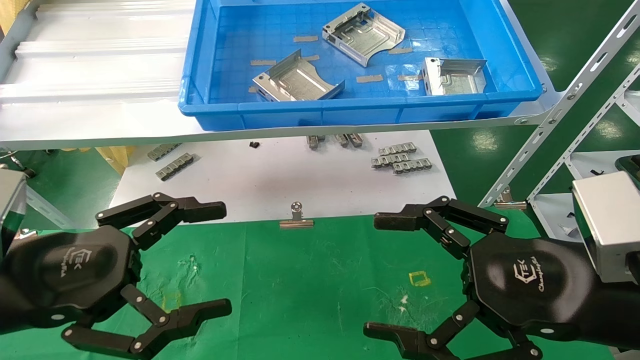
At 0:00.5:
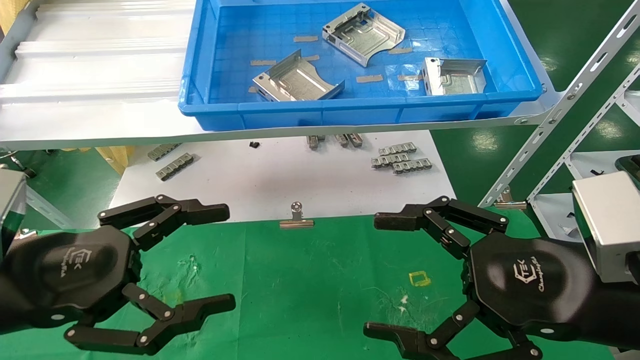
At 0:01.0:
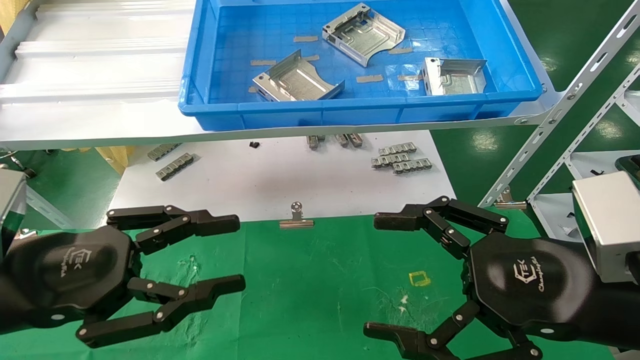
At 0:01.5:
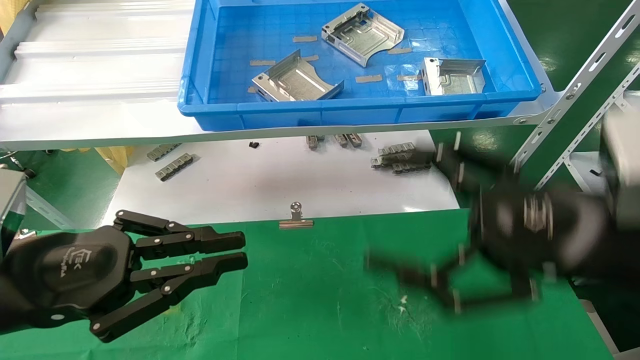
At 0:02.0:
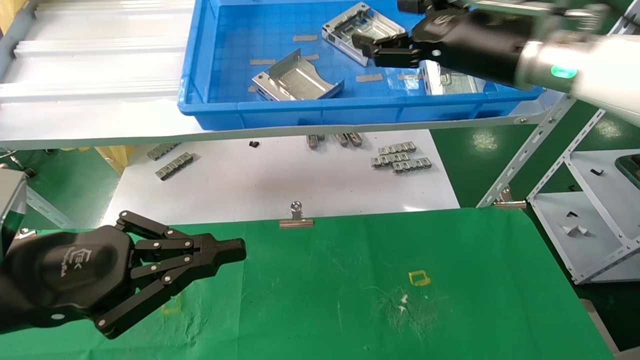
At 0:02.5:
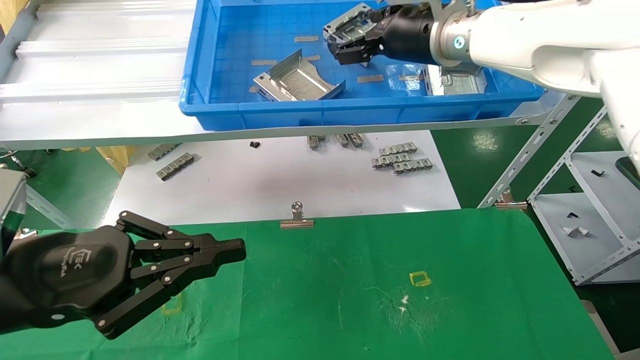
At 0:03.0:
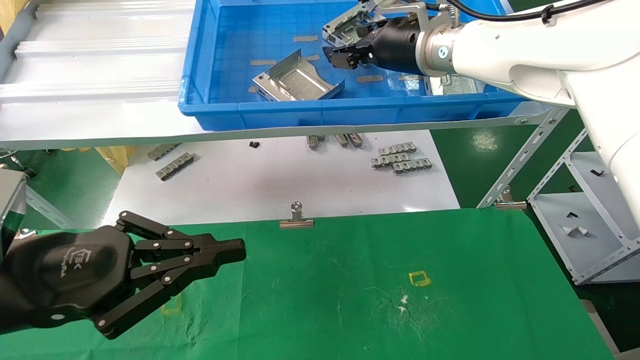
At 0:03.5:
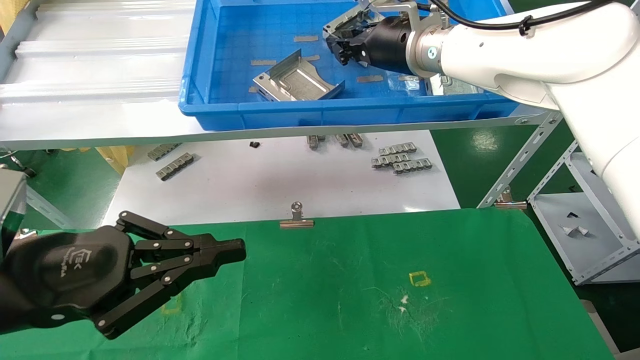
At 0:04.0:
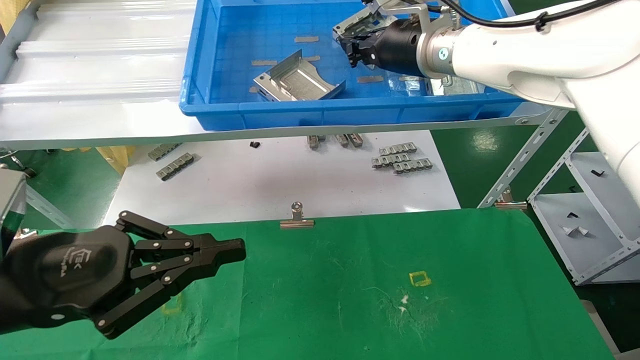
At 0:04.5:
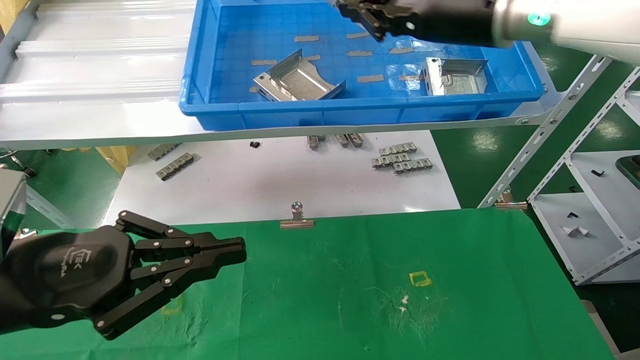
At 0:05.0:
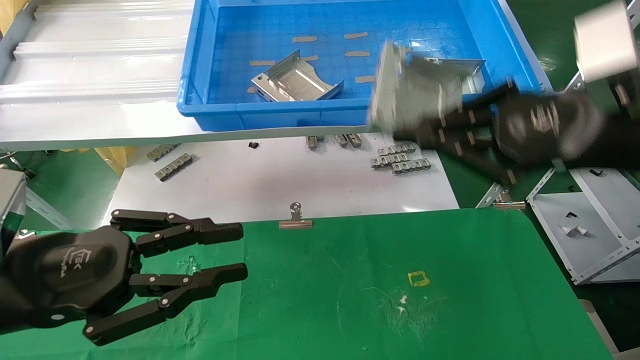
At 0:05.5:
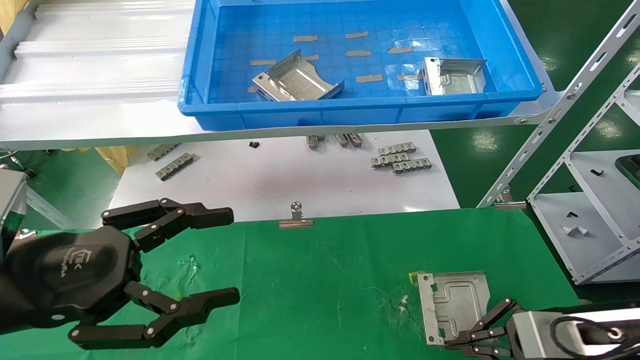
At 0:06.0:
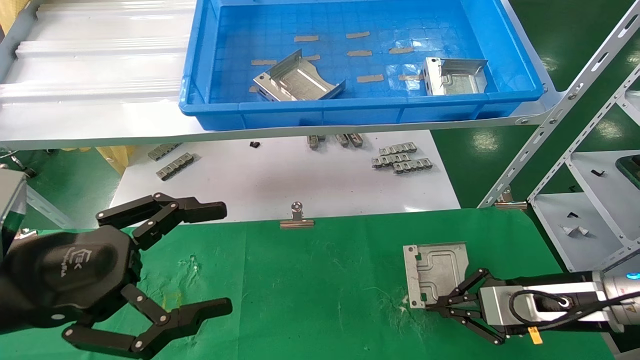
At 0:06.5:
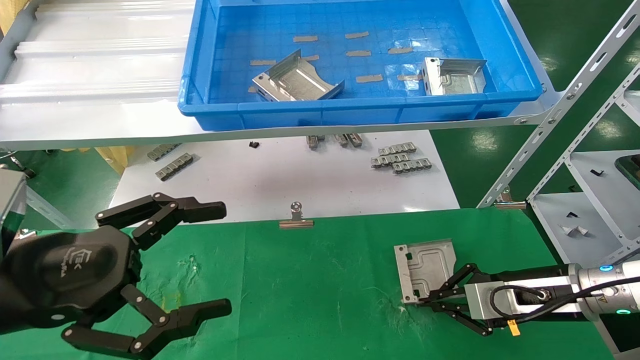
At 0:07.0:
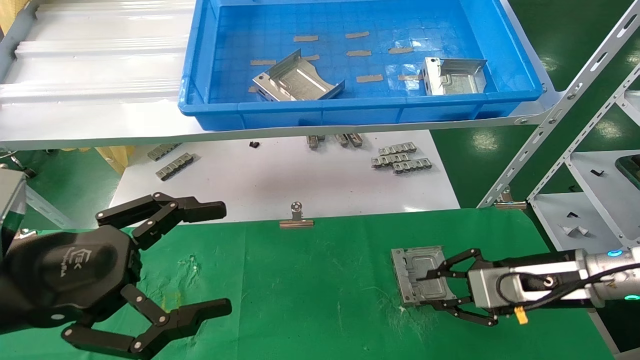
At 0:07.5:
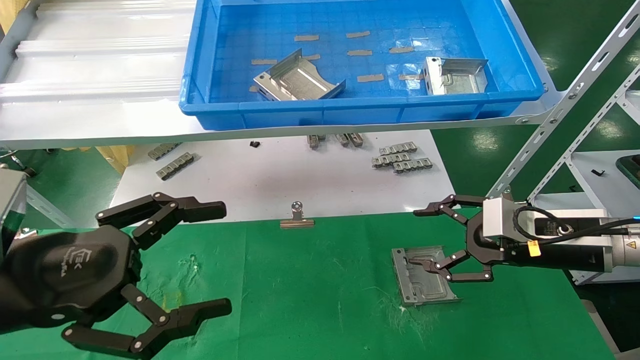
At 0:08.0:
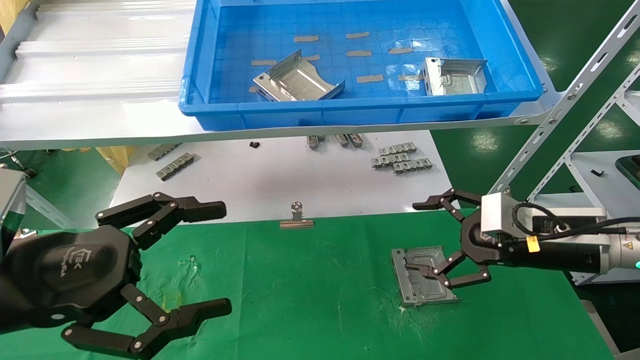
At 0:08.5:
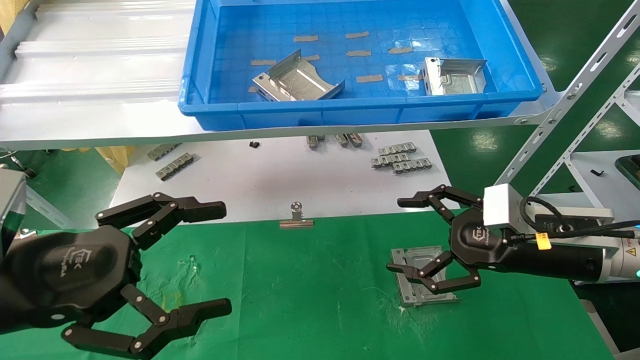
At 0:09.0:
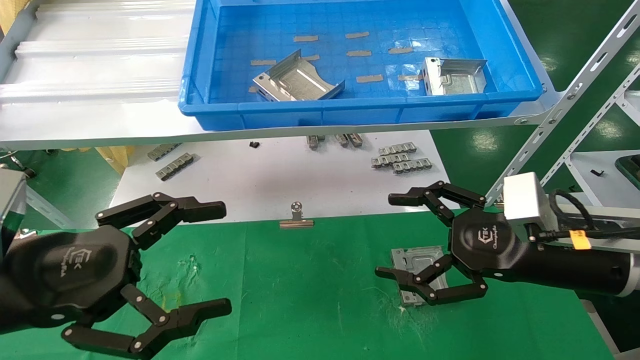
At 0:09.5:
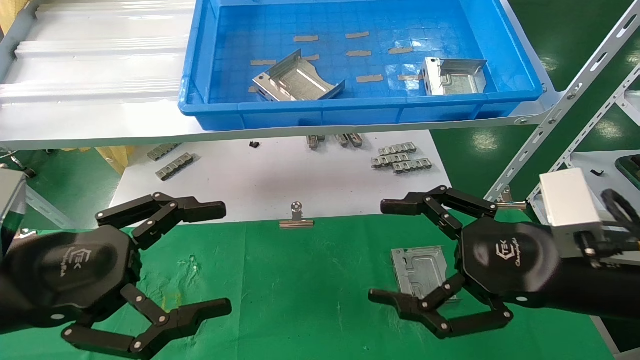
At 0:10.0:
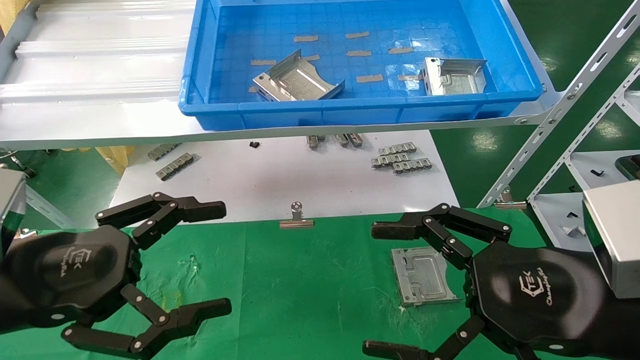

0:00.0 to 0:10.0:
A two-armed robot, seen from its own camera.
Task of the whole recording: use the mechanical arm to pick up the parts and place them on the table.
Step, 0:02.0 to 0:04.0: Pick up the hard drive bracket from the feeding area.
Step, 0:04.5 to 0:07.0: Place the hard drive bracket into the box.
0:00.0 to 0:02.0: The left gripper closes up; the right gripper shifts about 25 cm forward and upward.
0:02.0 to 0:04.0: The right gripper heads to the left and forward, covering about 10 cm, and closes up.
0:04.0 to 0:06.0: The right gripper heads downward and to the right, covering approximately 35 cm; the left gripper opens up.
0:06.0 to 0:08.0: The right gripper moves upward, about 5 cm, and opens.
0:08.0 to 0:10.0: The right gripper is displaced backward and to the left by approximately 15 cm.
